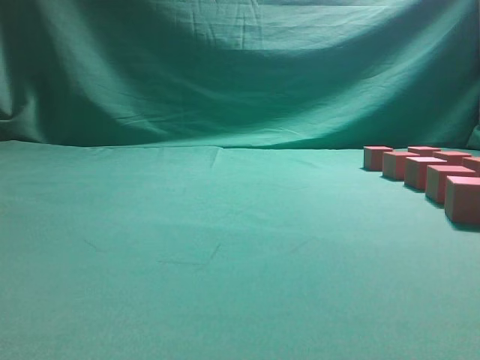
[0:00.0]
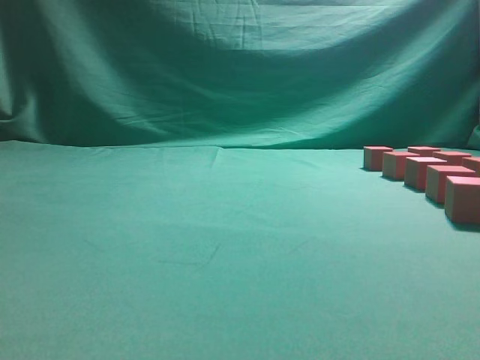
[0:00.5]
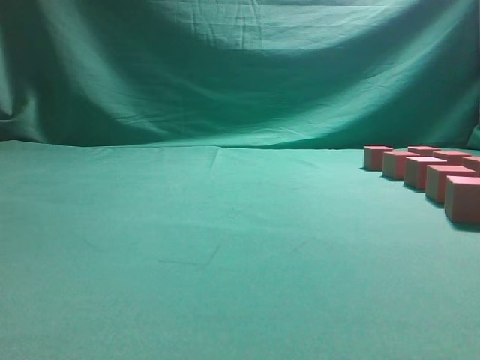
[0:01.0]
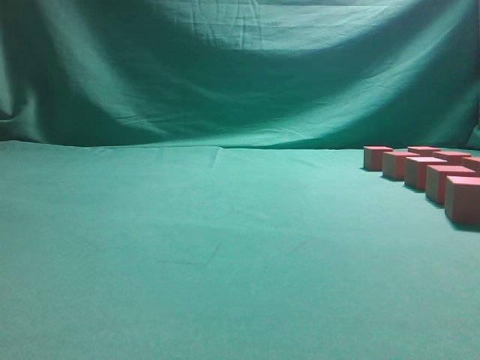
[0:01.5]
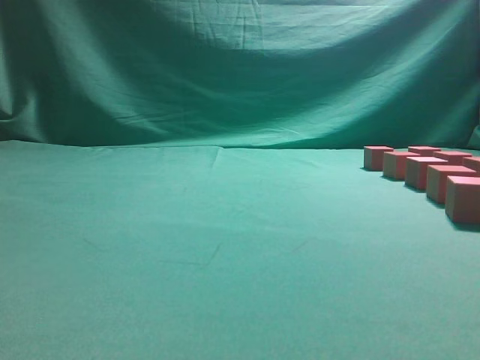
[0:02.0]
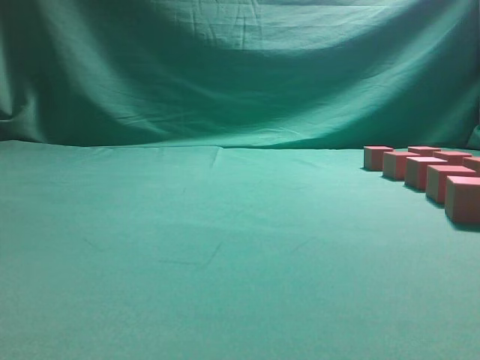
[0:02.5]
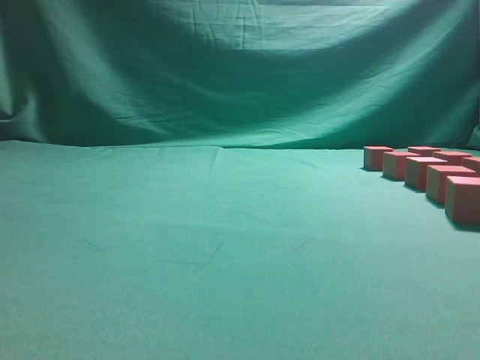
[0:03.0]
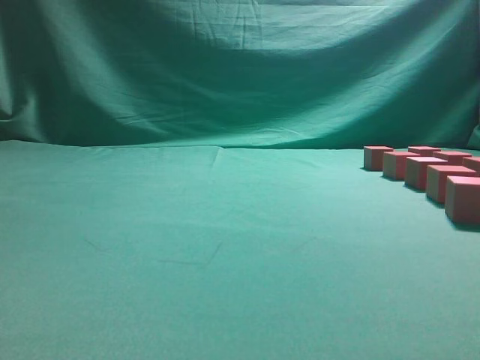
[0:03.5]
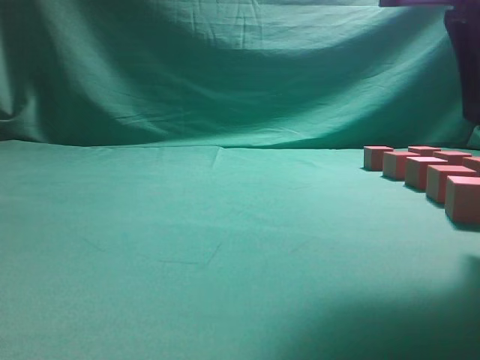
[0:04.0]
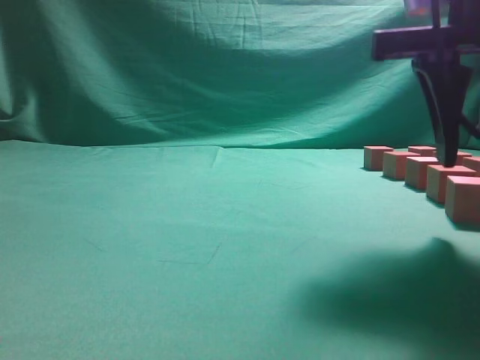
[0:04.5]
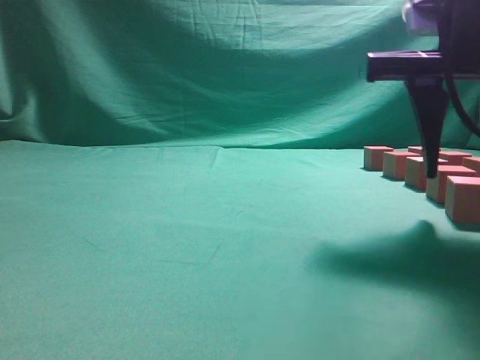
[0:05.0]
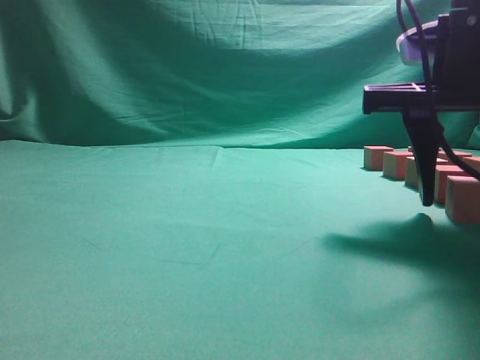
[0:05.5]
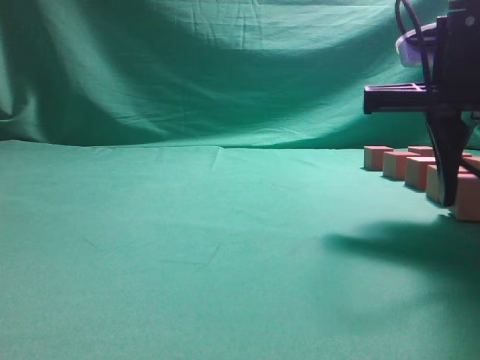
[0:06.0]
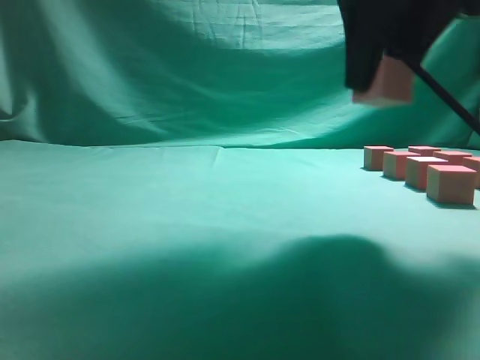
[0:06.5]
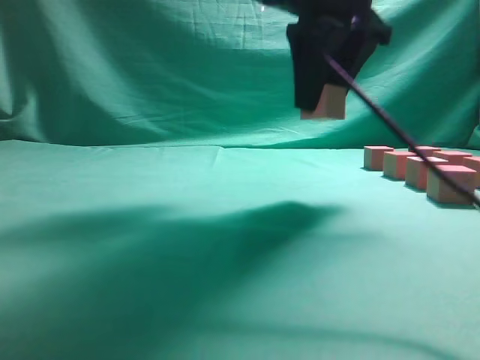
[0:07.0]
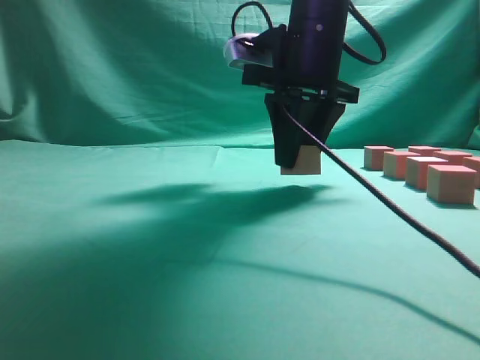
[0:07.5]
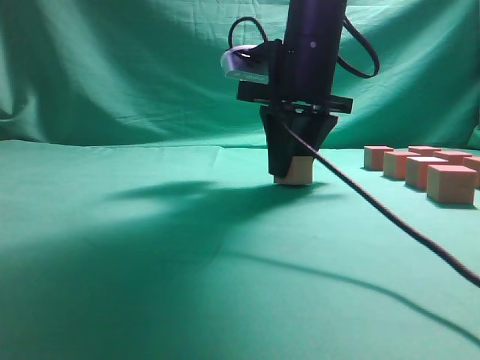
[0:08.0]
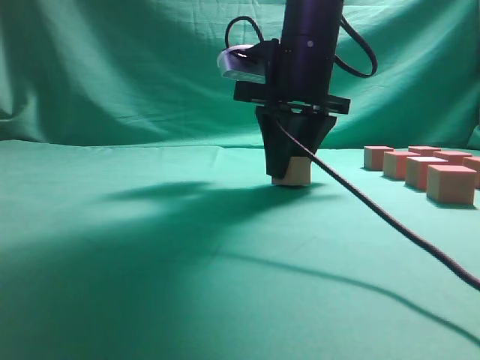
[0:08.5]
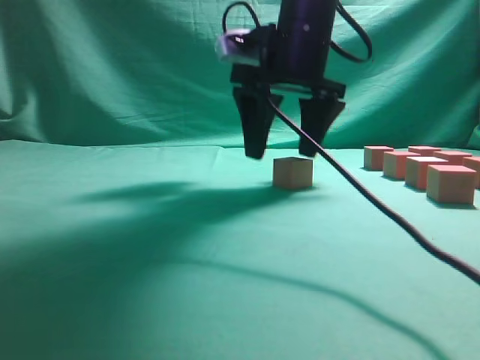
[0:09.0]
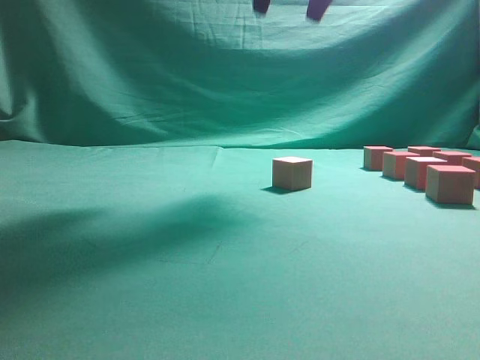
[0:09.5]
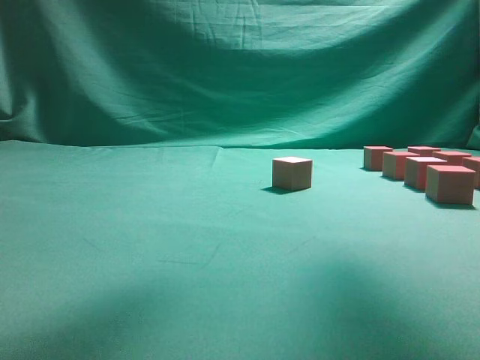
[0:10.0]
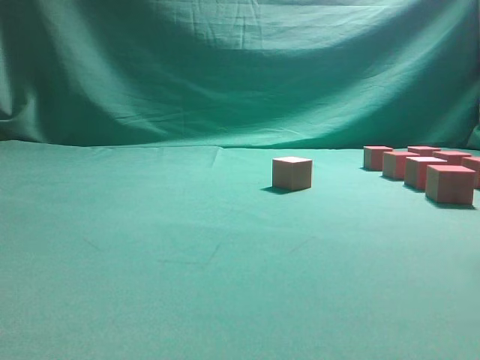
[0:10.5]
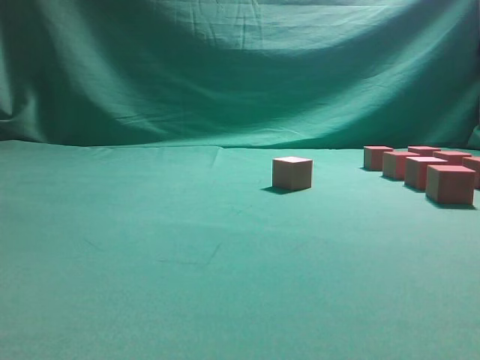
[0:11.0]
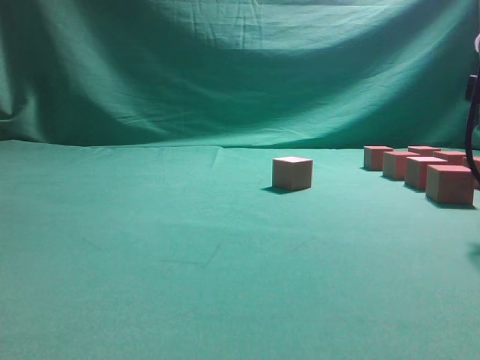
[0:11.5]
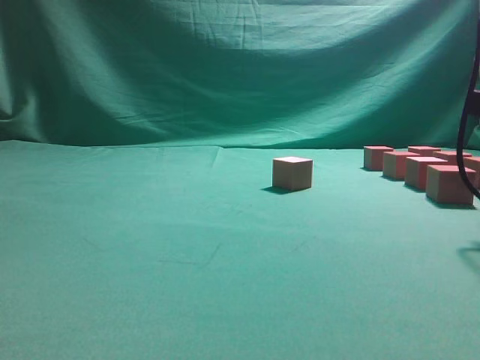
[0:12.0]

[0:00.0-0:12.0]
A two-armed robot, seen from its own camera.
Task of the whole recording: pick up the multiple cubes in two columns one by one and place them in another position on the table.
Step, 0:00.0 to 0:06.0: Pick up the block on the table.
Step, 0:06.5 to 0:09.0: Place the block at the correct position to assemble the letter S.
0:02.0 to 0:04.0: The right gripper shifts approximately 20 cm forward and to the left.
0:04.0 to 0:06.0: The right gripper goes some 5 cm downward.
0:06.0 to 0:08.0: The right gripper travels forward and to the left by roughly 15 cm.
0:08.0 to 0:10.0: The right gripper is displaced upward and backward by some 20 cm, and opens.
0:10.0 to 0:12.0: The right gripper is displaced downward and to the right by roughly 25 cm, and closes.

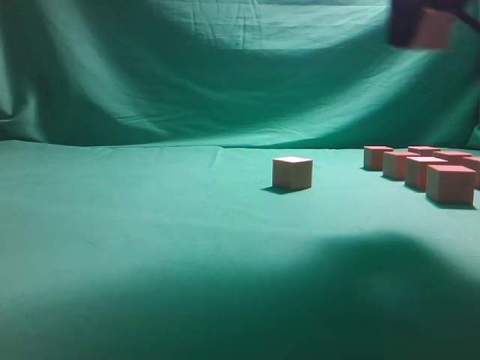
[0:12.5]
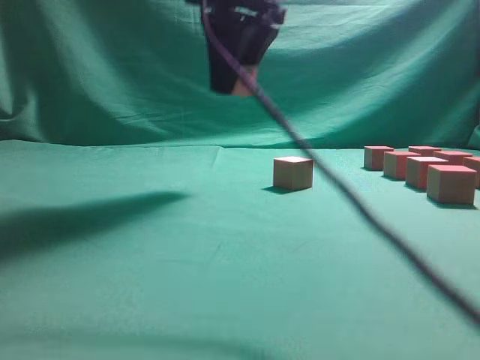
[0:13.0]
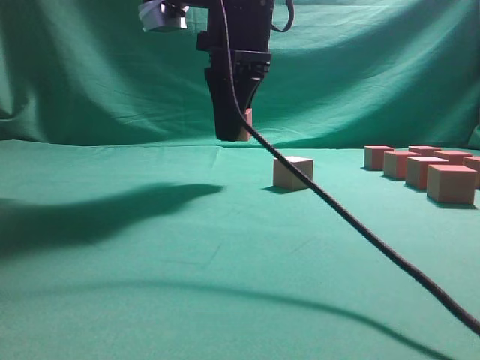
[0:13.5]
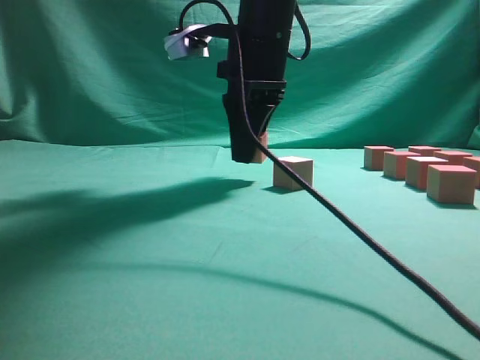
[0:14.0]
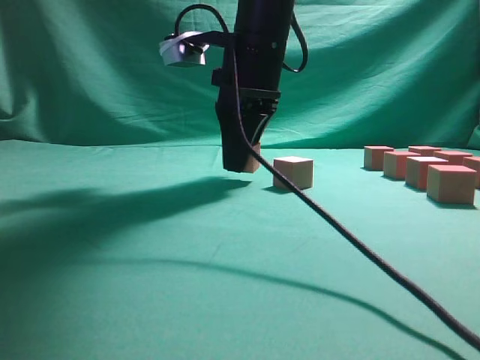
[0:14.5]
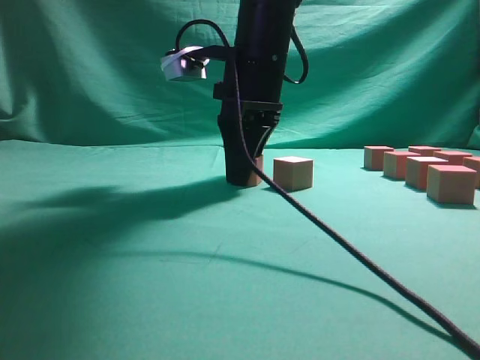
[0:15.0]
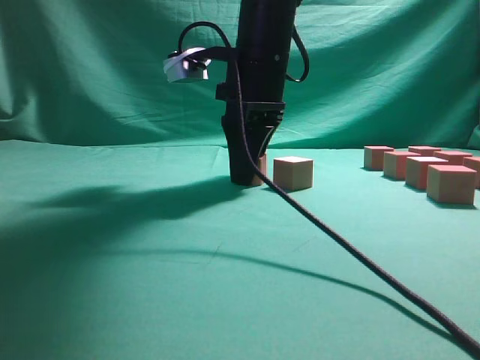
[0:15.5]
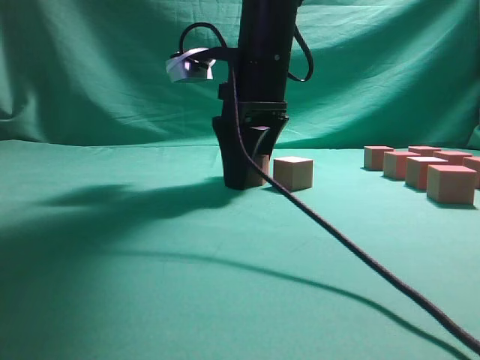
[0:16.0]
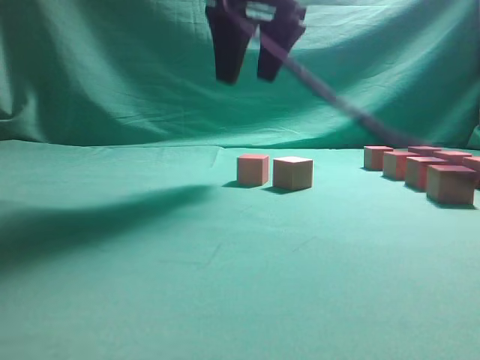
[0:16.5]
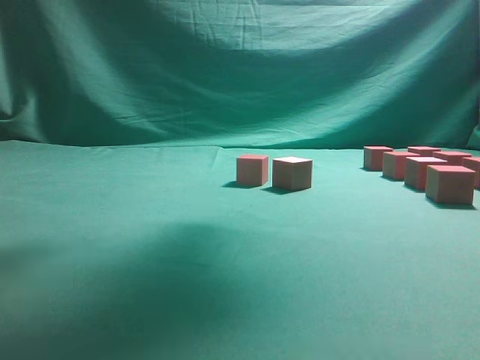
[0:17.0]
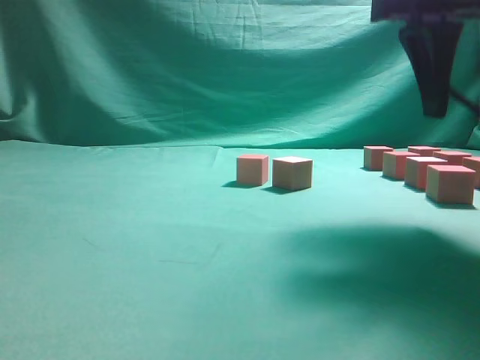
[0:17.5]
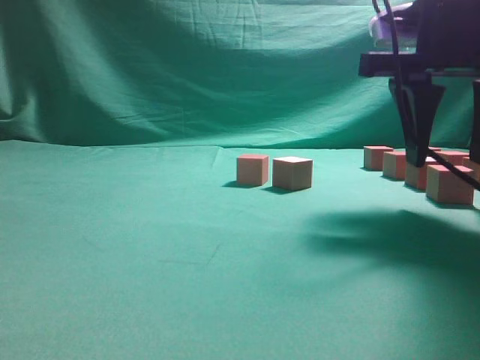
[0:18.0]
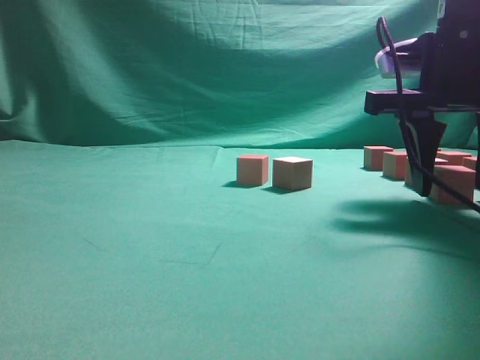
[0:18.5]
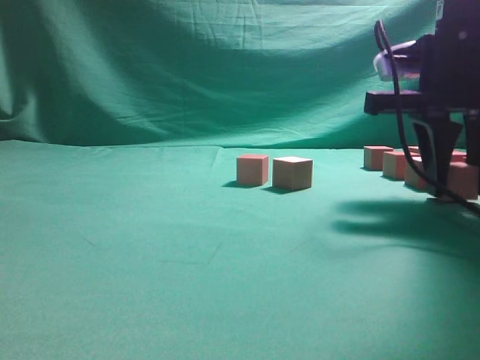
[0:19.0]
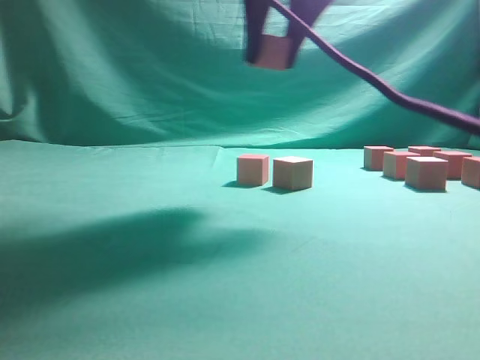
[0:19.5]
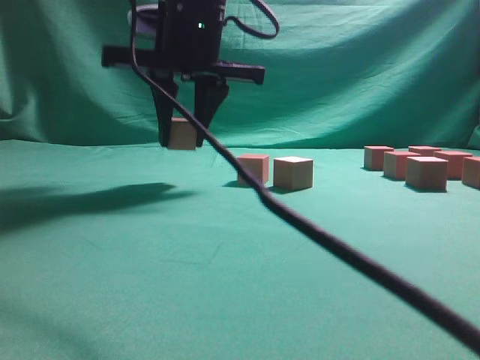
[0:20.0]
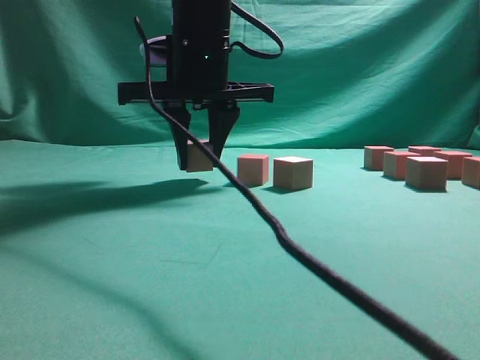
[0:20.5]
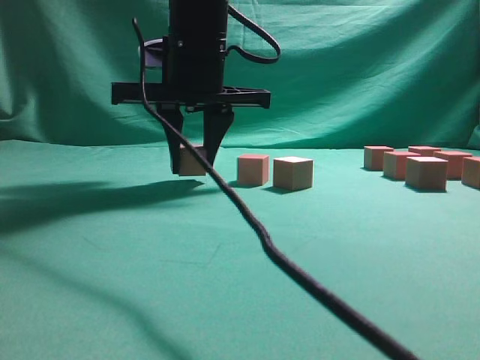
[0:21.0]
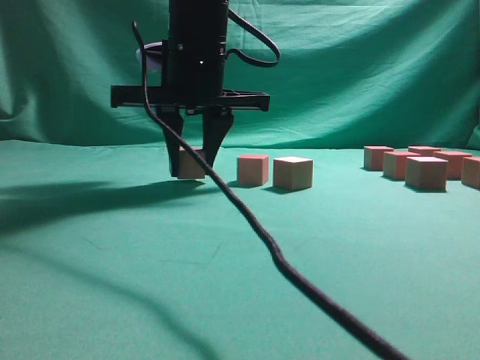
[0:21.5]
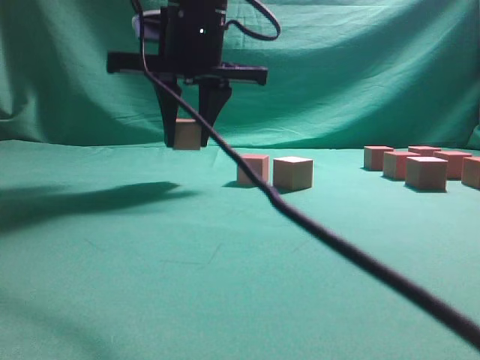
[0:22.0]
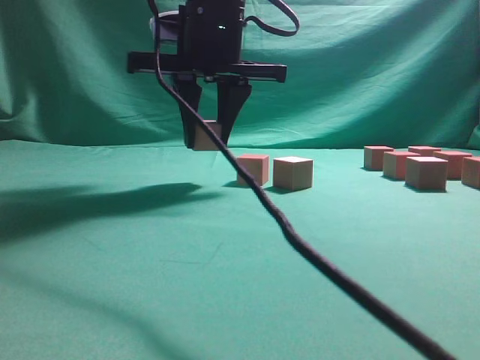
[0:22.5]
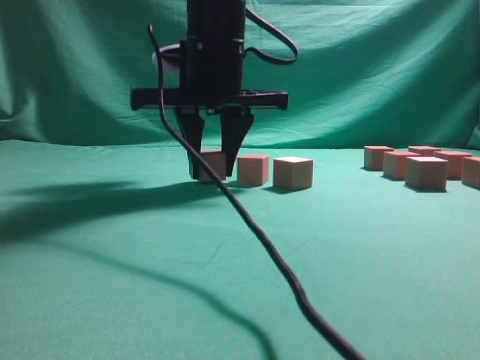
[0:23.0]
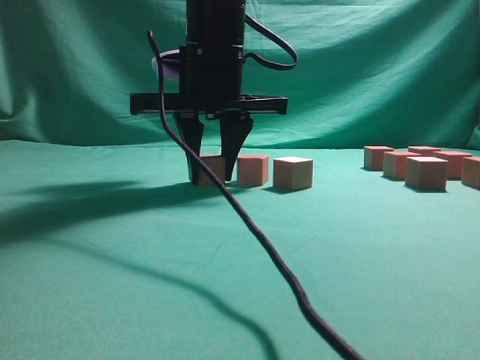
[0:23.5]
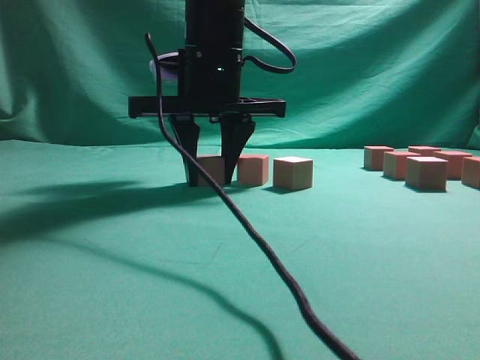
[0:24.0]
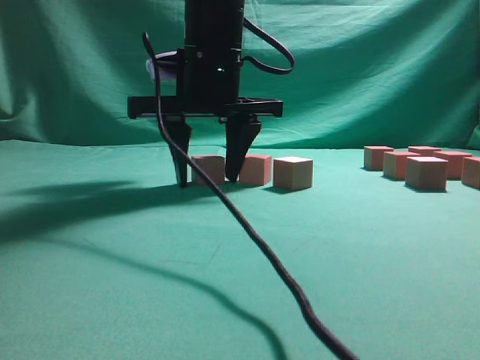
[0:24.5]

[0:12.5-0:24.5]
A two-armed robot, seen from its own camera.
Task of the whole recording: pick up the multiple cubes in two columns one by one and place them in another position on the table.
Step, 0:12.5 to 0:16.0: Place the block at the correct position to assemble the letter S.
Step, 0:16.5 to 0:19.0: Pick up the block on the table.
0:12.5 to 0:14.5: The right gripper travels to the left, downward and forward by roughly 20 cm.
0:14.5 to 0:16.5: The right gripper heads upward, covering about 10 cm, and opens.
0:16.5 to 0:18.5: The right gripper travels to the right, downward and backward by approximately 20 cm.
0:18.5 to 0:20.5: The right gripper shifts roughly 25 cm to the left.
0:20.5 to 0:24.5: The grippers stay close to where they were, moving slightly.

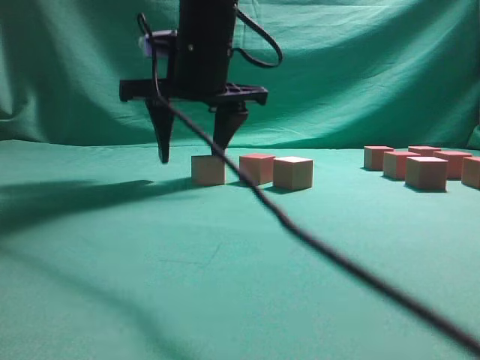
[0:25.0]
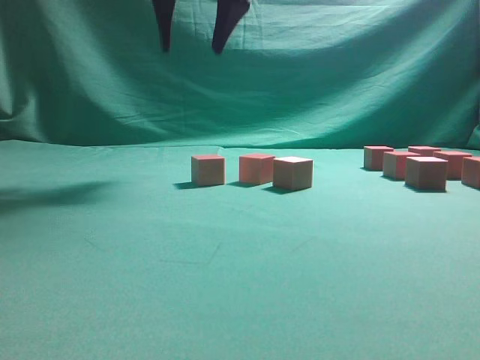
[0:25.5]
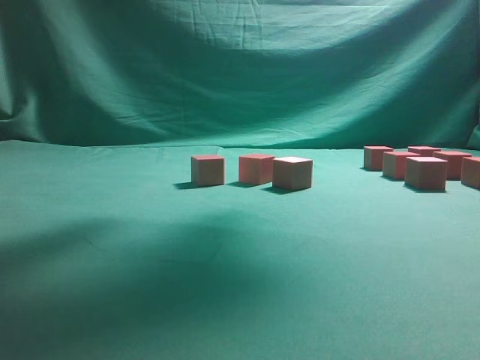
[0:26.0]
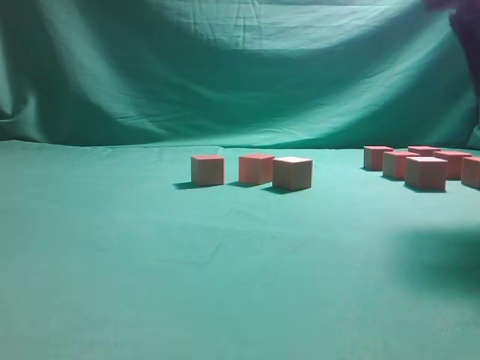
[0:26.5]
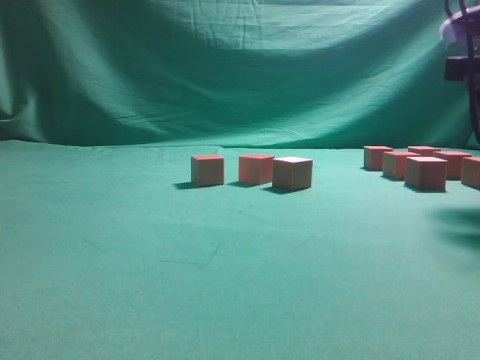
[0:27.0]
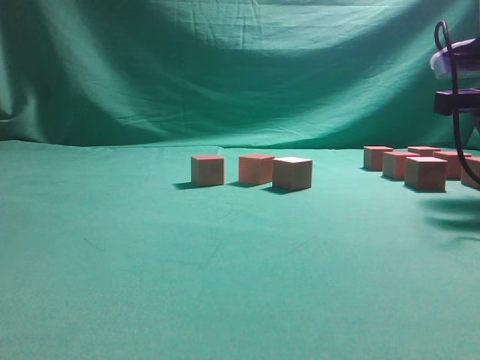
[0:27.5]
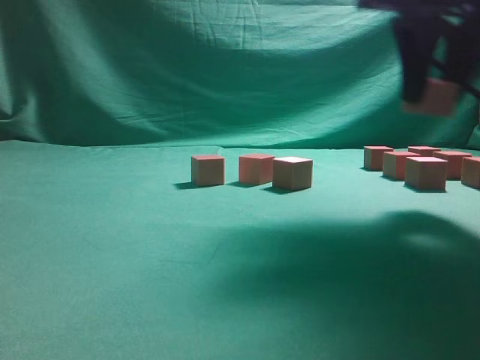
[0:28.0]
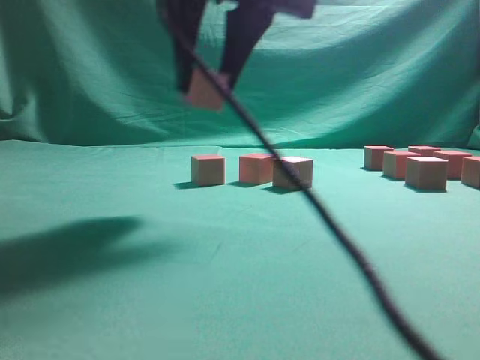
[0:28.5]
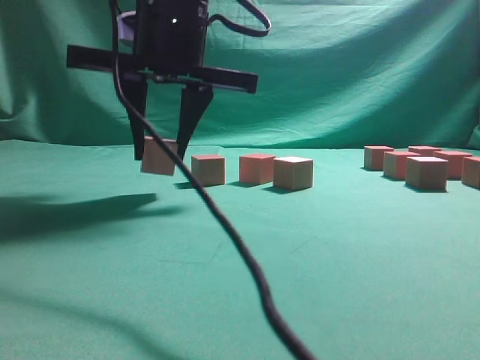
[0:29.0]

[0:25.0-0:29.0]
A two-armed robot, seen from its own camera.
Task of the whole recording: pick up the multiple cubes in two columns one by one and place them in another position on the table.
Step, 0:25.5 to 0:27.5: Pick up the block on the table.
0:25.0 to 0:27.0: The right gripper travels to the right by some 30 cm.
0:27.0 to 0:29.0: The right gripper shifts some 30 cm to the left.
